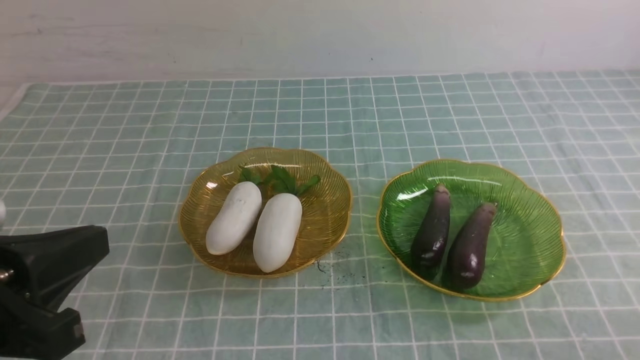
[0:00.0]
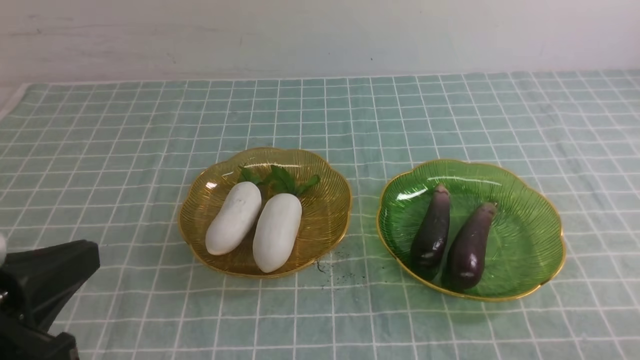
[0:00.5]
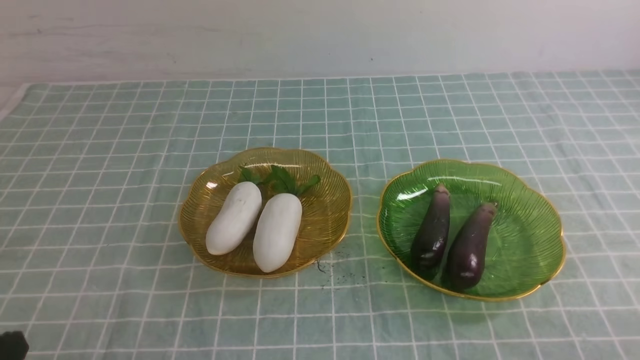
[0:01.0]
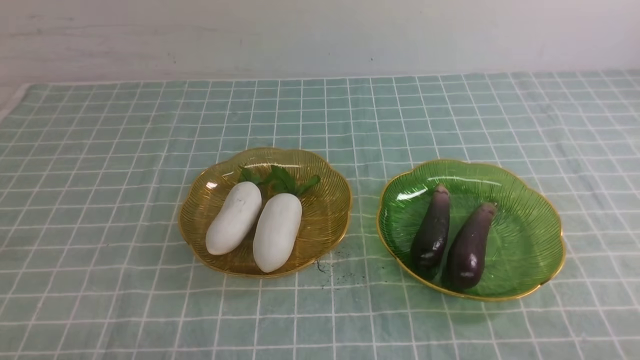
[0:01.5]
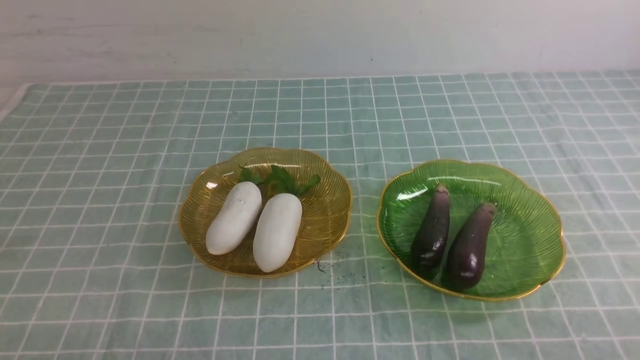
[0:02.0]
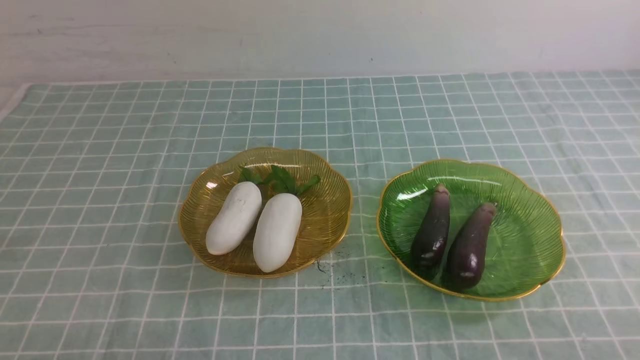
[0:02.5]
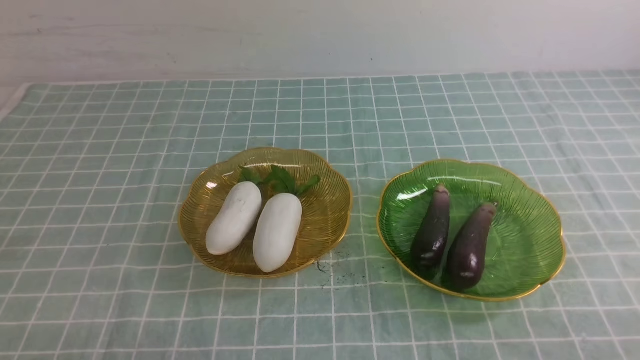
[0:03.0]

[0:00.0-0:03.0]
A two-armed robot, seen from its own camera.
0:00.0 to 0:01.5: The left gripper is displaced downward by some 15 cm.
0:01.5 to 0:03.0: Both grippers stay about where they are.

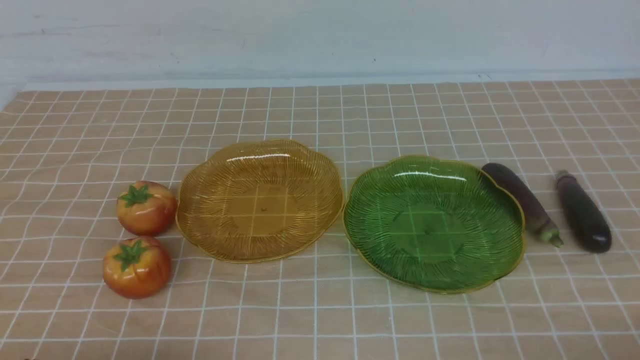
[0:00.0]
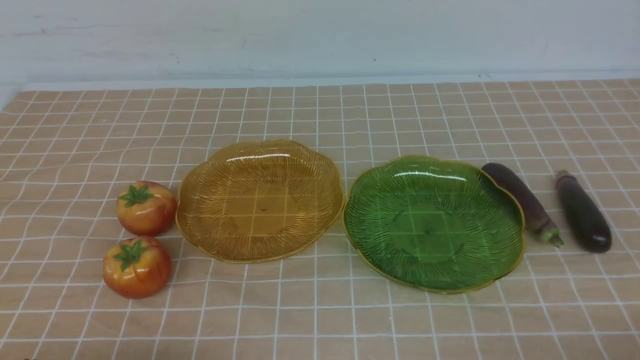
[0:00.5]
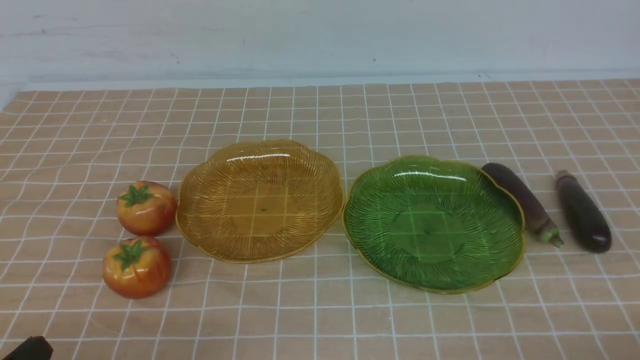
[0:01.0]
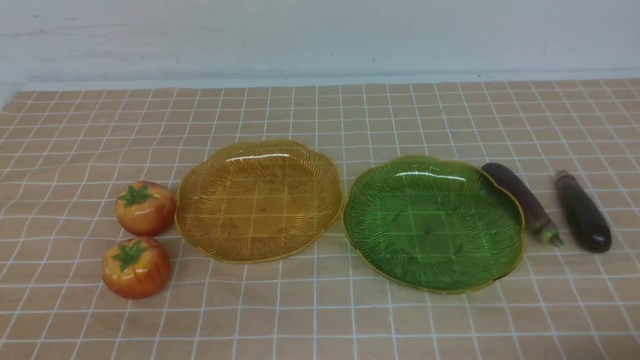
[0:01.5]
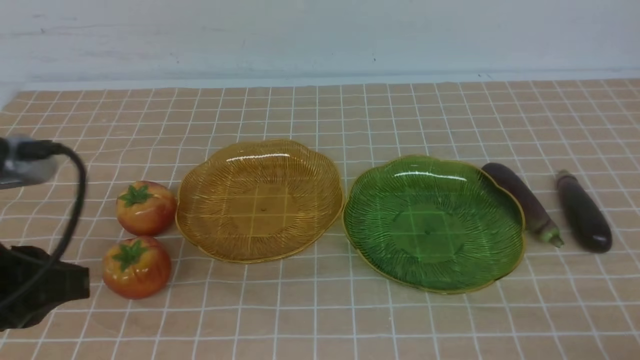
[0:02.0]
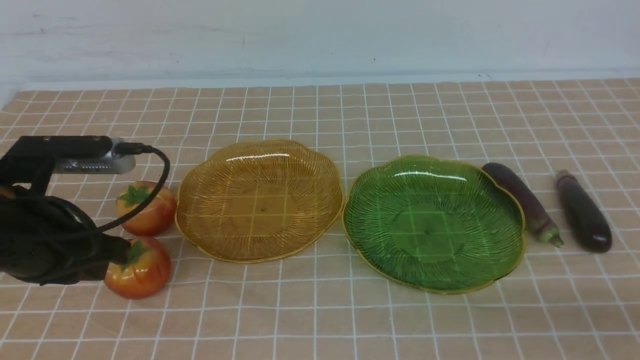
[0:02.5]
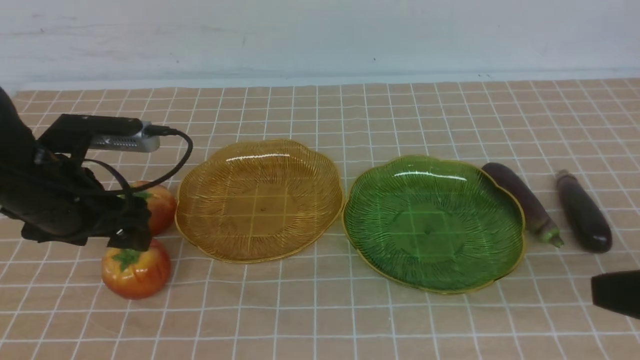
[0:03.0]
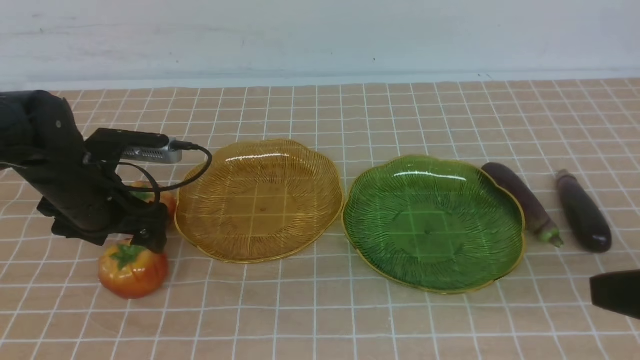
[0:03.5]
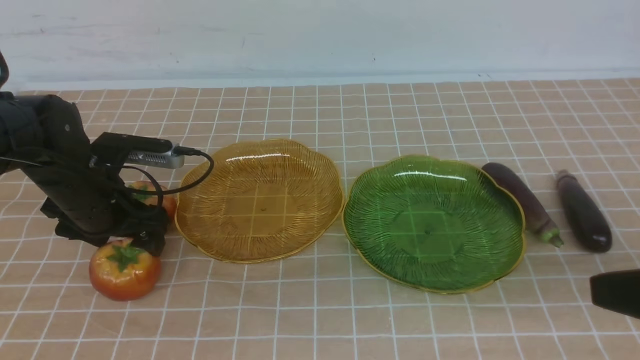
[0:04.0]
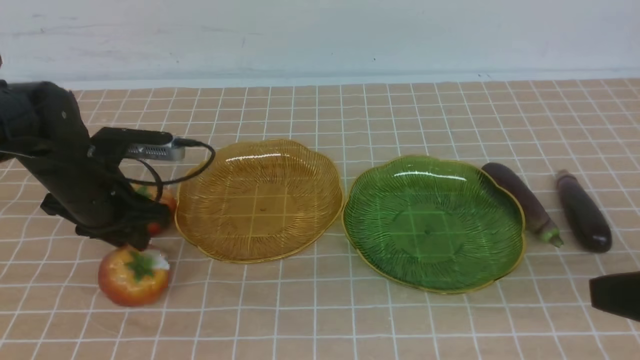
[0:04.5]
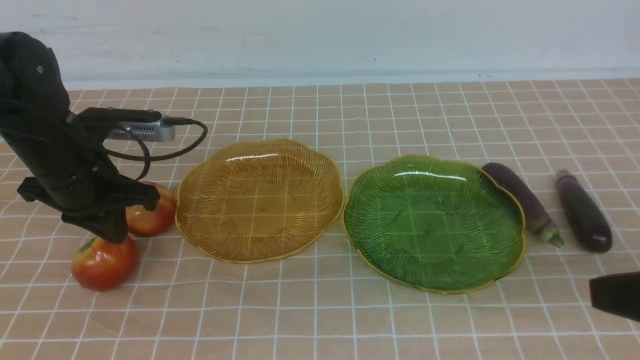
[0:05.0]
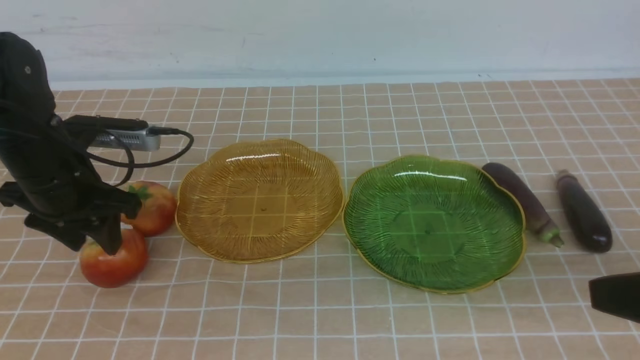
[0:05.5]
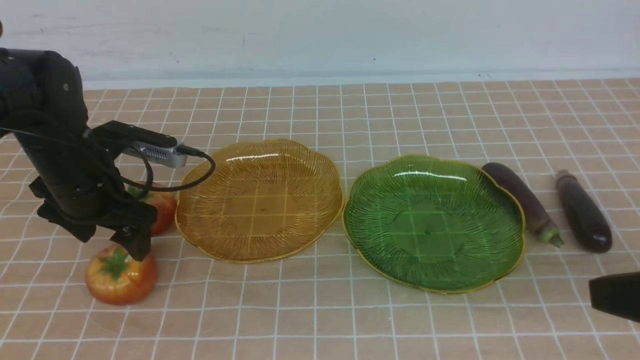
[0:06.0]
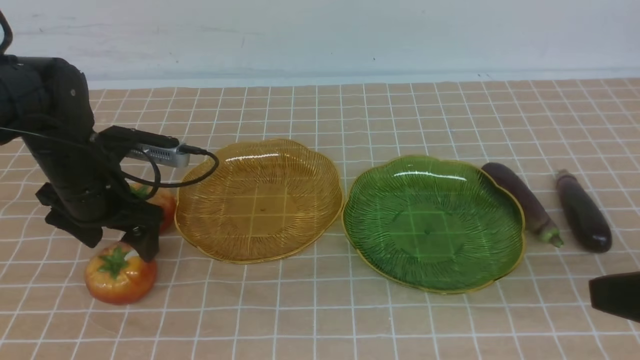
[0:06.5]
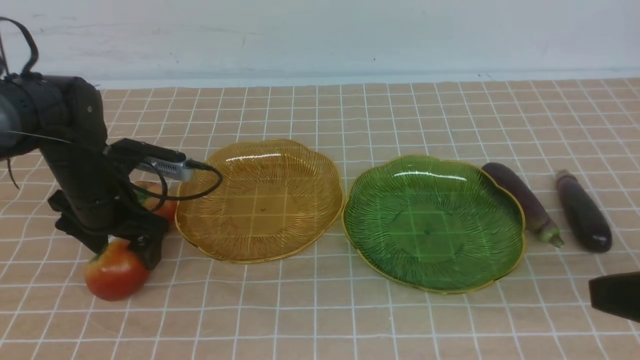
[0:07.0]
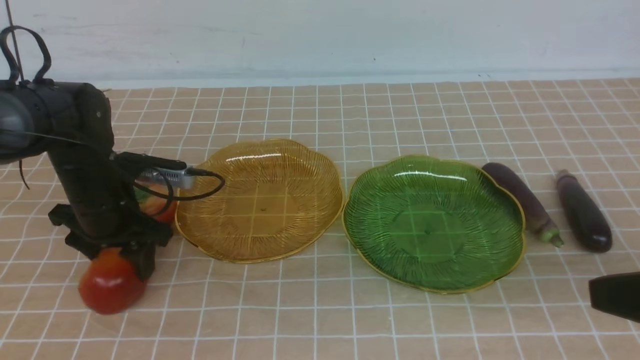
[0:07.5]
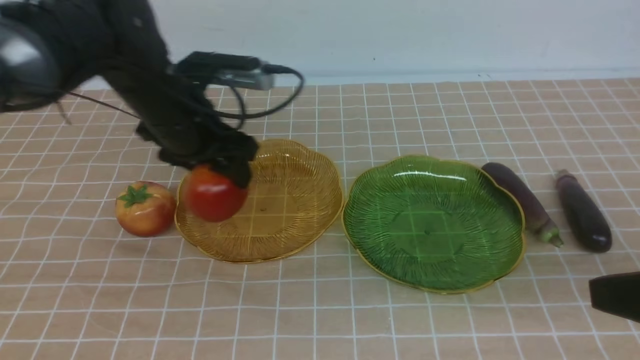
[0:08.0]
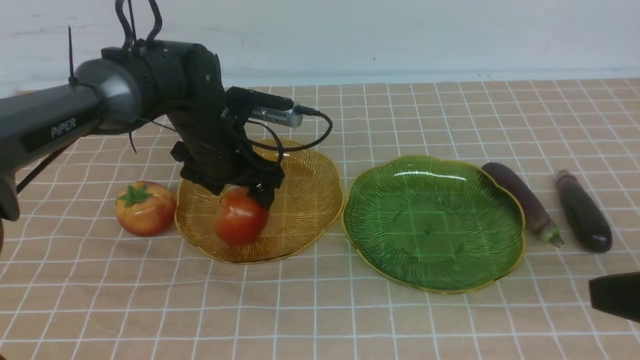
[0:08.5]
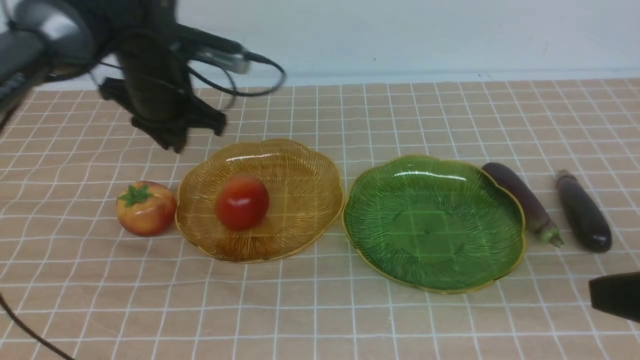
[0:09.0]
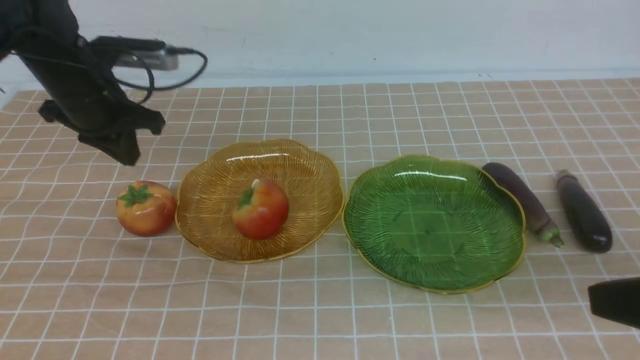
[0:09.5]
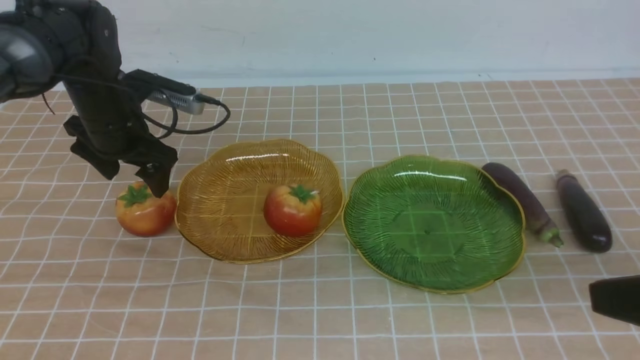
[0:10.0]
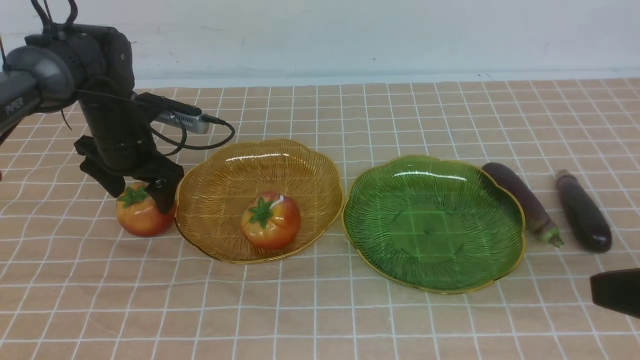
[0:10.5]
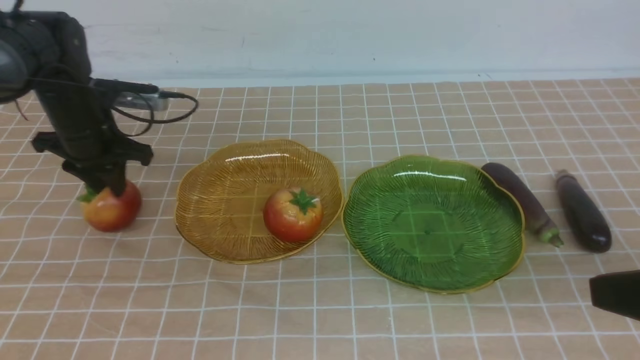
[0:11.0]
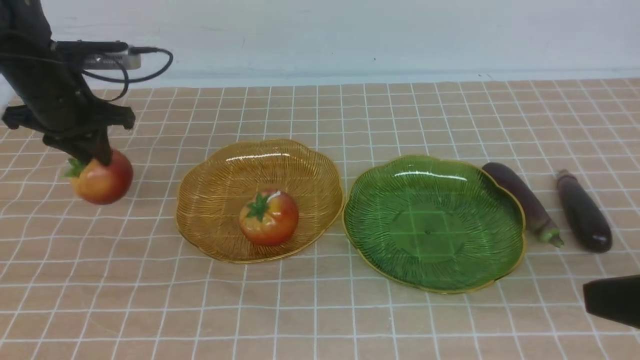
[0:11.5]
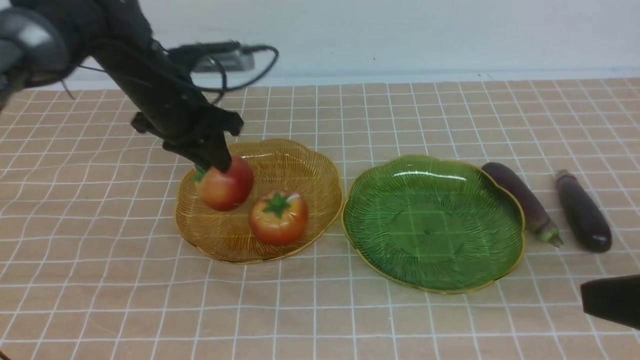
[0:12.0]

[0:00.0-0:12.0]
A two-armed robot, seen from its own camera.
Step, 0:00.0 to 0:08.5: use the left arm to grab a tomato and put it into the left plate.
0:00.0 to 0:02.0: The left gripper goes roughly 20 cm upward and forward.
0:02.0 to 0:04.0: The left gripper travels forward and downward by some 25 cm, and opens up. The right gripper heads upward and forward, covering roughly 15 cm.
0:04.0 to 0:06.0: The left gripper closes, then reopens.
0:06.0 to 0:08.0: The left gripper is displaced to the right and forward by some 15 cm.
0:08.0 to 0:10.0: The left gripper is displaced to the left by roughly 10 cm, and closes and opens again.
0:10.0 to 0:12.0: The left gripper moves to the right and upward, approximately 10 cm, and closes up.

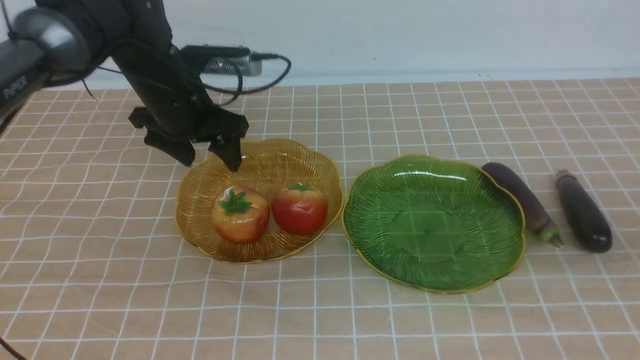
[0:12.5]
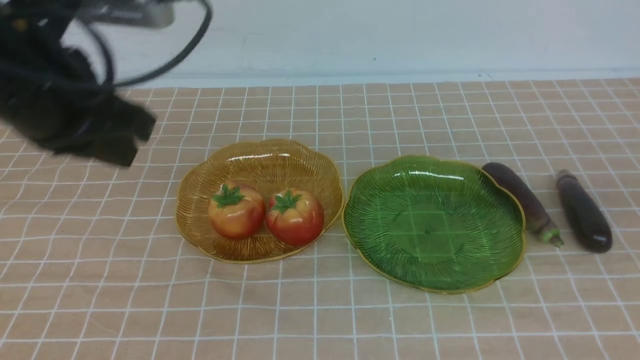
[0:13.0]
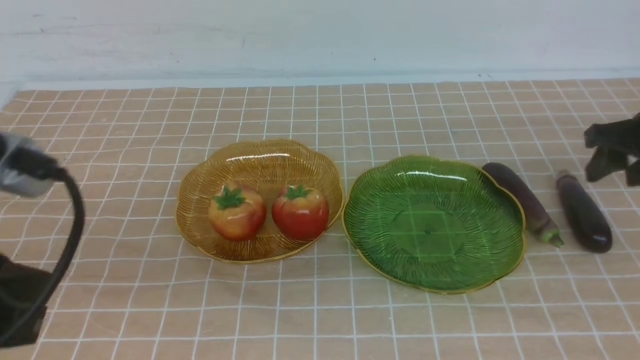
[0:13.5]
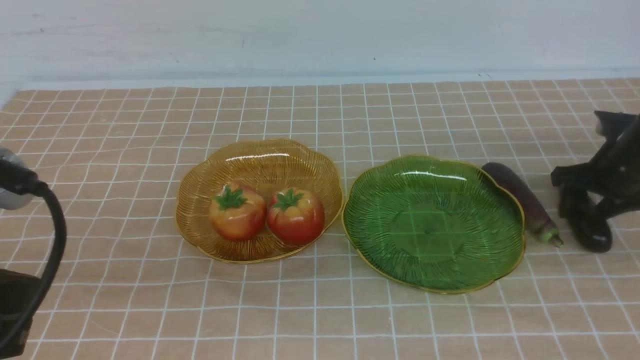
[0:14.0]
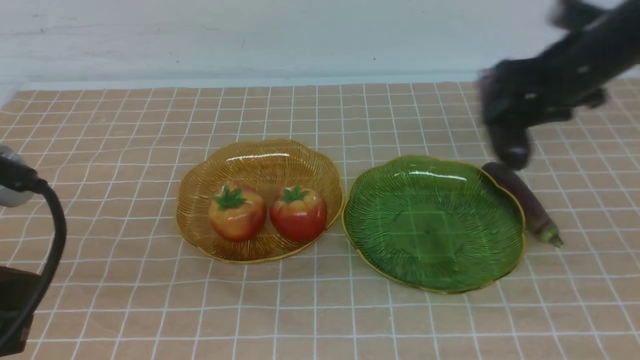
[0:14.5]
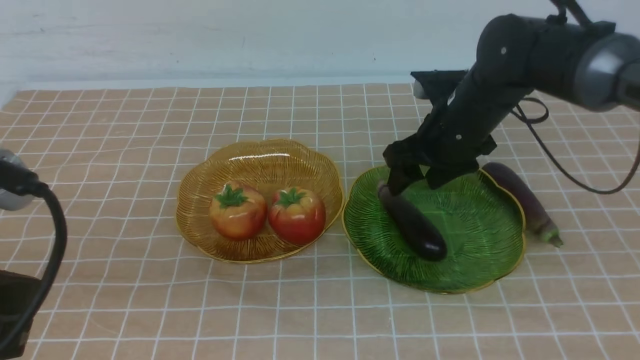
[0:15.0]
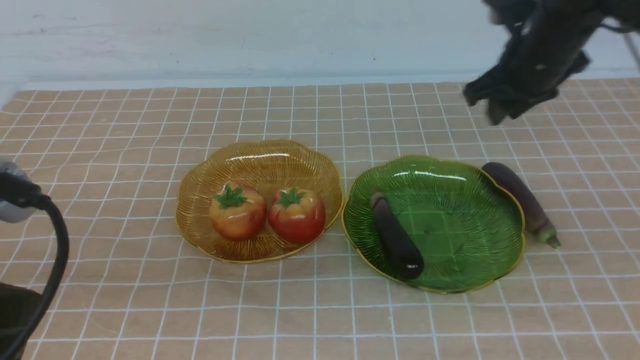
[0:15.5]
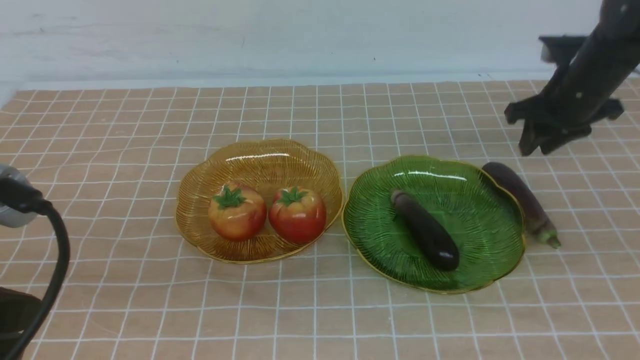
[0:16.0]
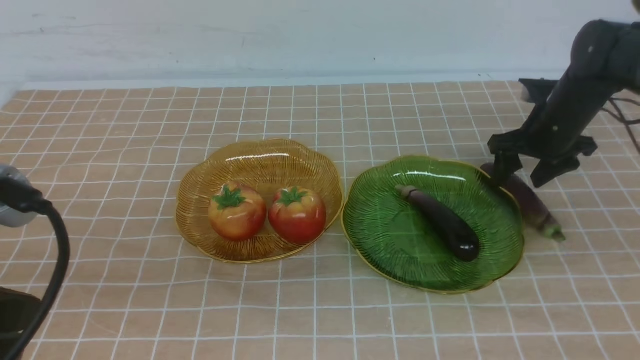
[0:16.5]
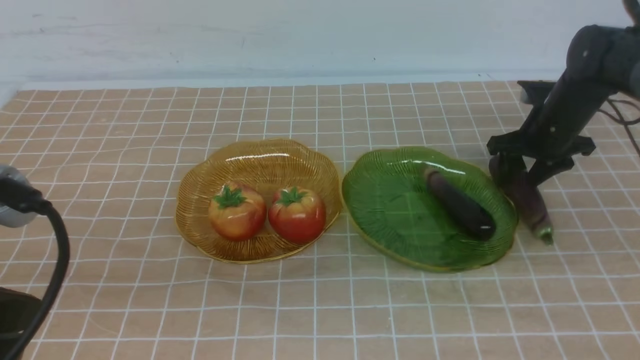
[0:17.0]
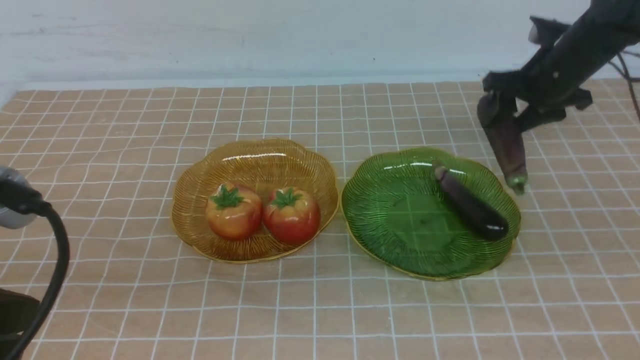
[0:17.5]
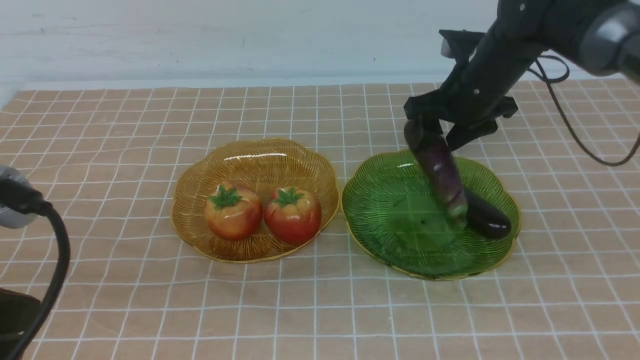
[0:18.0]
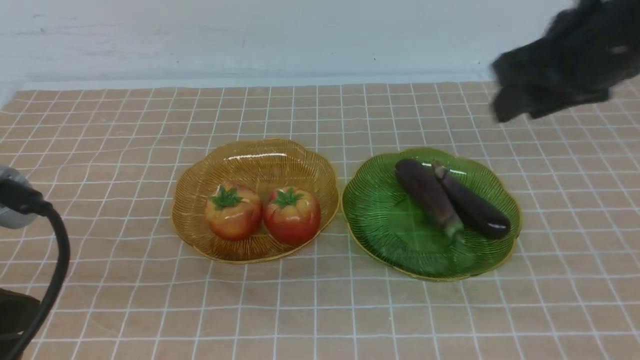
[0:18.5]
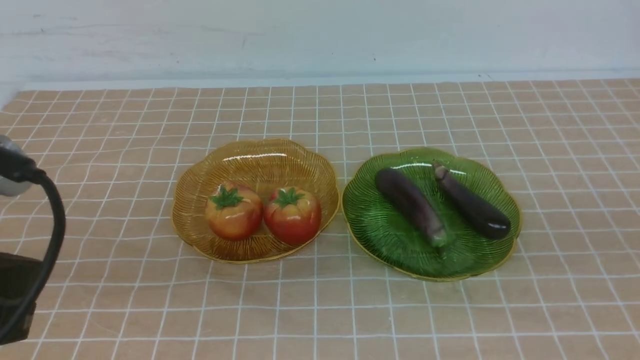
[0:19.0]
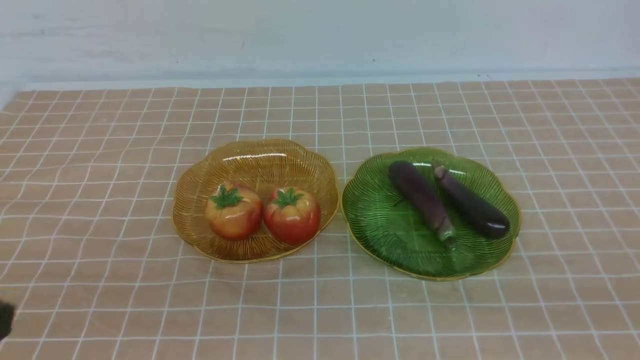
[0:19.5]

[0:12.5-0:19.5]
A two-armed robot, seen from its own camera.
Step, 0:13.0 to 0:18.0: use the right arm to grab an eggplant and put it into the right plate.
0:12.5 to 0:14.5: The left gripper goes roughly 30 cm backward, and closes, while the right gripper shifts roughly 30 cm forward, to the left and downward, and opens its fingers.
0:14.5 to 0:16.0: The right gripper moves to the right and forward, about 15 cm, and closes, then opens again.
0:16.0 to 0:17.5: The right gripper moves about 5 cm.
0:17.5 to 0:19.5: The left gripper shifts some 10 cm backward and downward. Meanwhile the right gripper shifts roughly 50 cm backward, and closes up.
